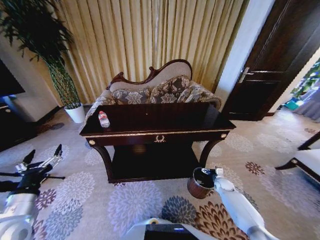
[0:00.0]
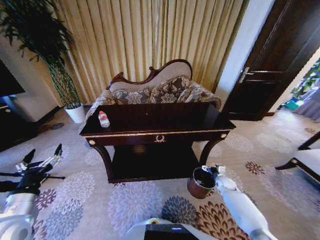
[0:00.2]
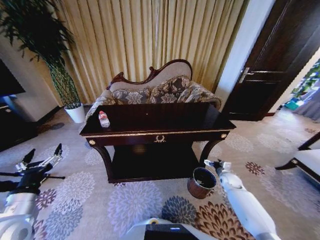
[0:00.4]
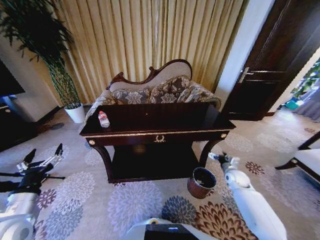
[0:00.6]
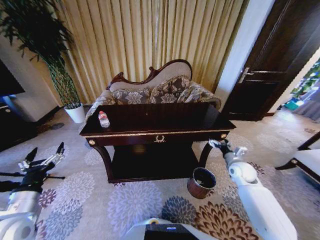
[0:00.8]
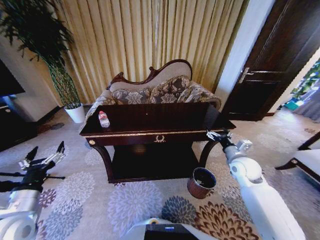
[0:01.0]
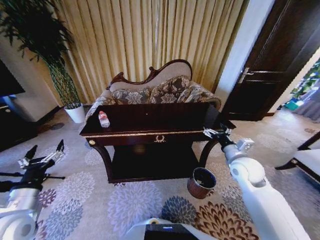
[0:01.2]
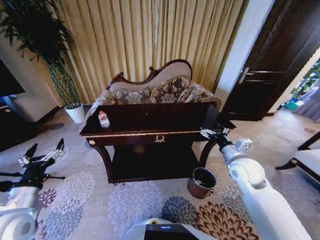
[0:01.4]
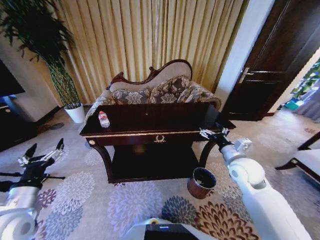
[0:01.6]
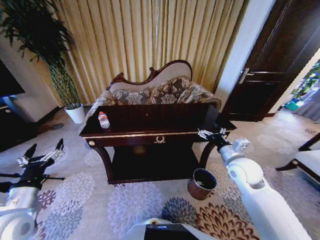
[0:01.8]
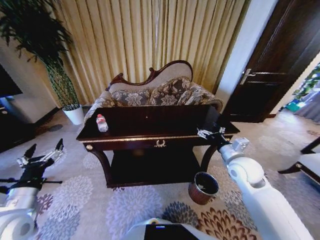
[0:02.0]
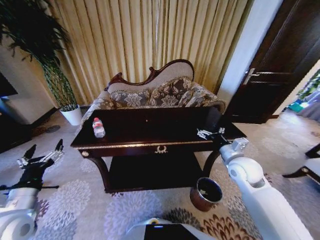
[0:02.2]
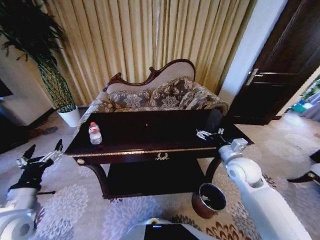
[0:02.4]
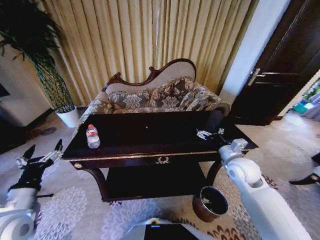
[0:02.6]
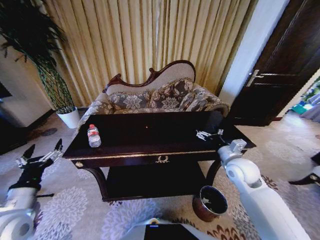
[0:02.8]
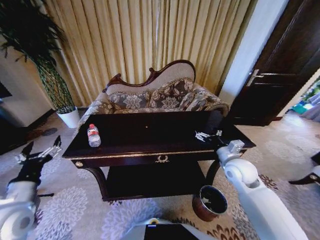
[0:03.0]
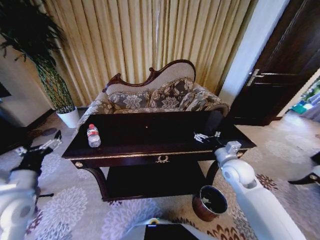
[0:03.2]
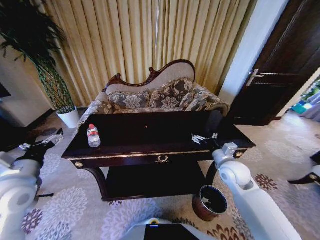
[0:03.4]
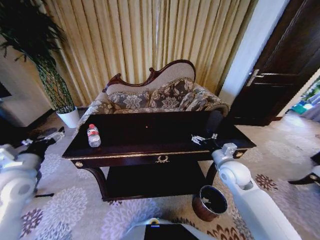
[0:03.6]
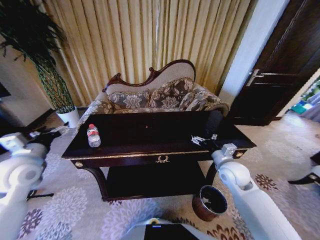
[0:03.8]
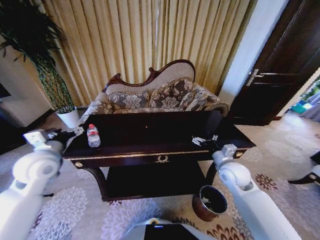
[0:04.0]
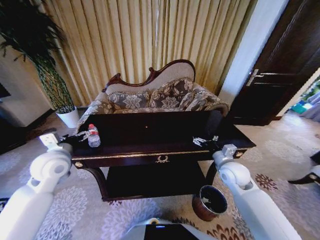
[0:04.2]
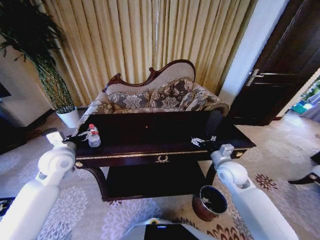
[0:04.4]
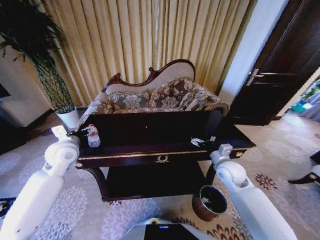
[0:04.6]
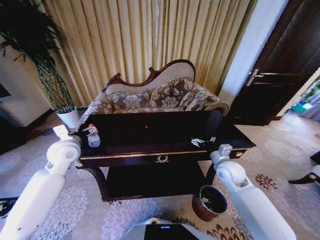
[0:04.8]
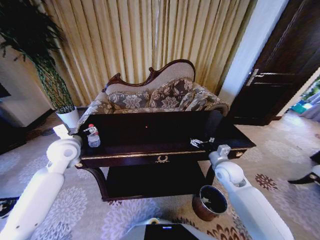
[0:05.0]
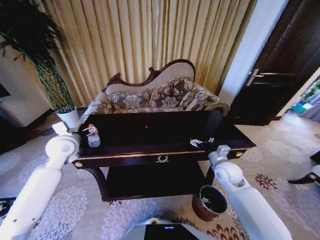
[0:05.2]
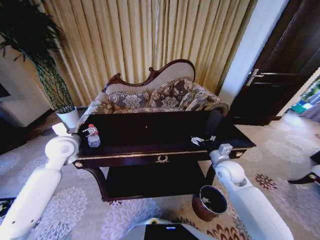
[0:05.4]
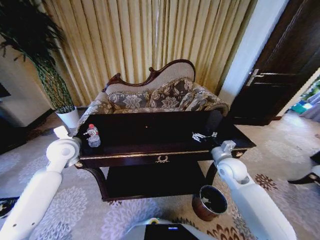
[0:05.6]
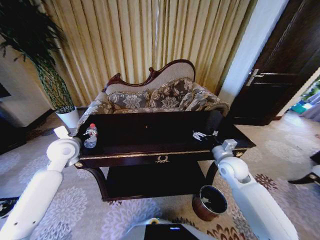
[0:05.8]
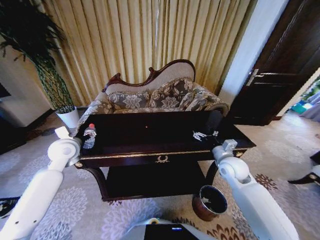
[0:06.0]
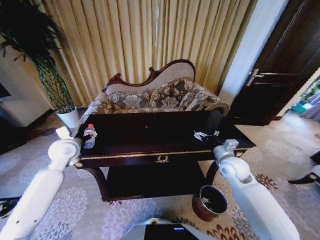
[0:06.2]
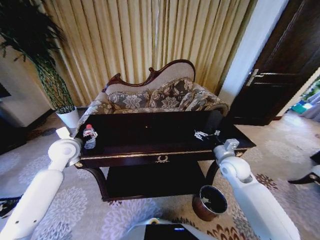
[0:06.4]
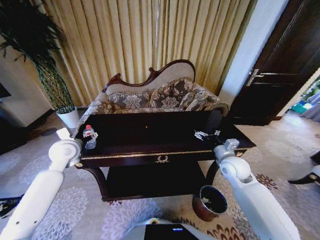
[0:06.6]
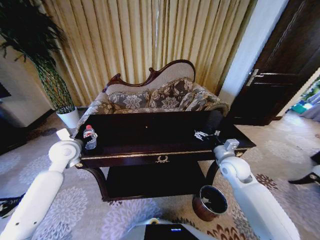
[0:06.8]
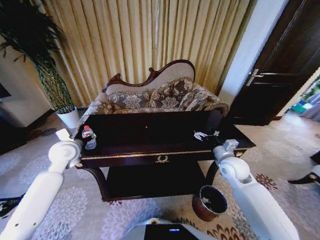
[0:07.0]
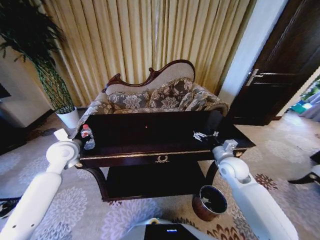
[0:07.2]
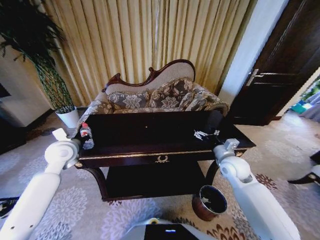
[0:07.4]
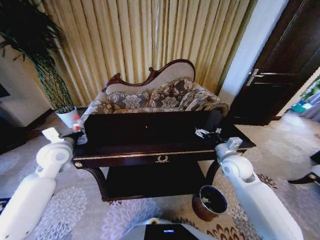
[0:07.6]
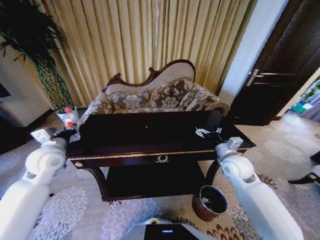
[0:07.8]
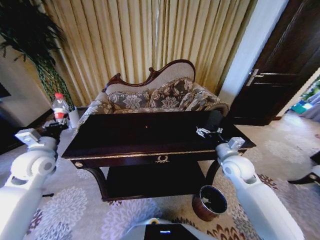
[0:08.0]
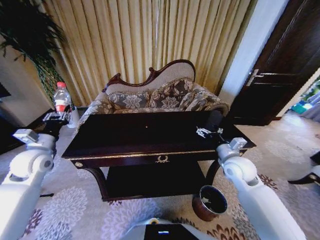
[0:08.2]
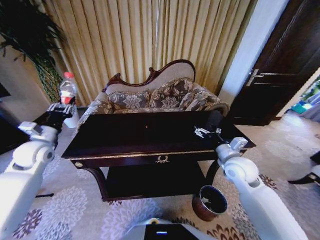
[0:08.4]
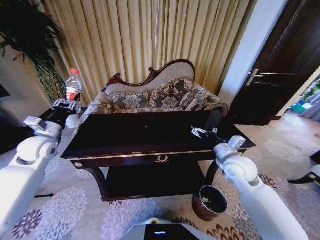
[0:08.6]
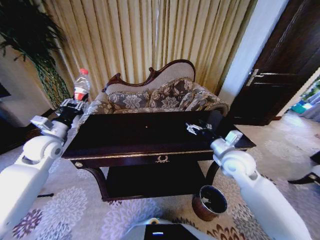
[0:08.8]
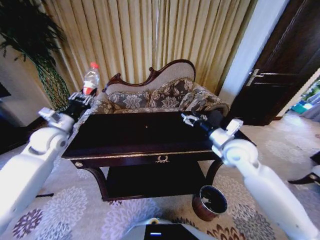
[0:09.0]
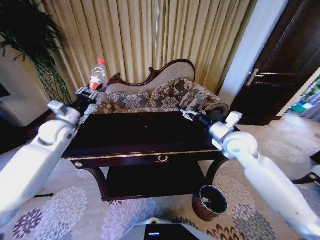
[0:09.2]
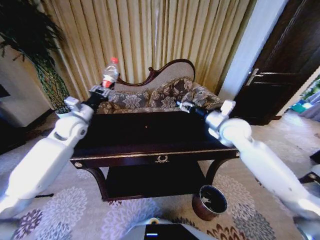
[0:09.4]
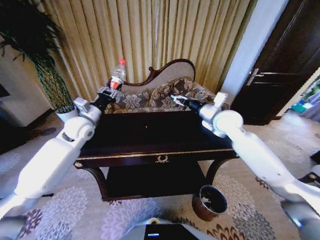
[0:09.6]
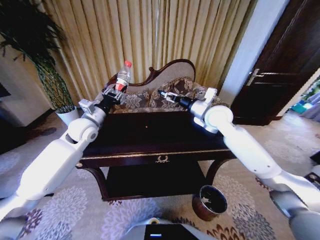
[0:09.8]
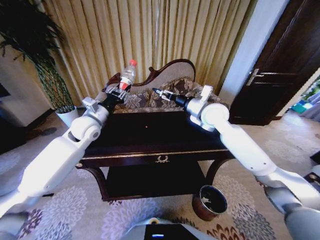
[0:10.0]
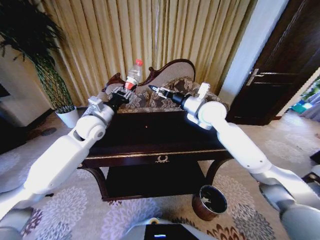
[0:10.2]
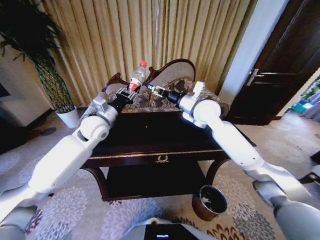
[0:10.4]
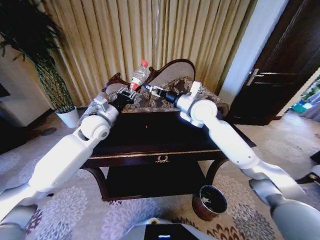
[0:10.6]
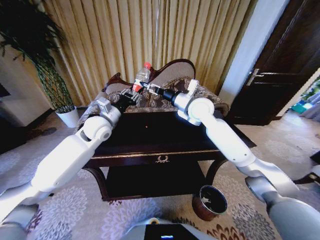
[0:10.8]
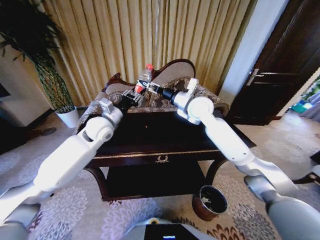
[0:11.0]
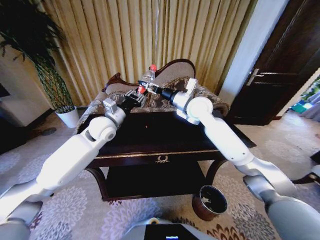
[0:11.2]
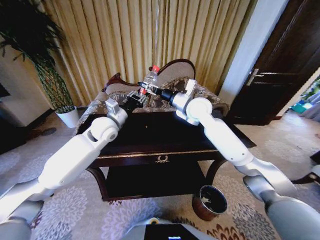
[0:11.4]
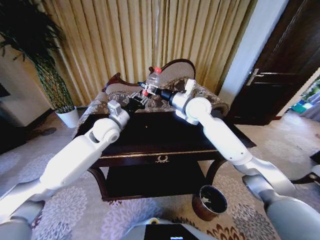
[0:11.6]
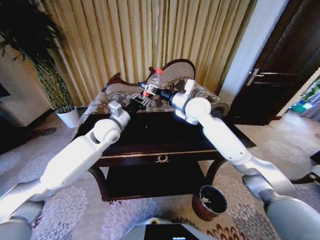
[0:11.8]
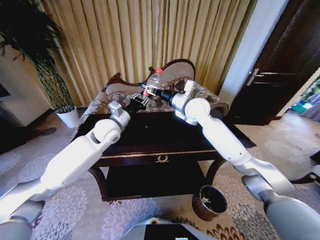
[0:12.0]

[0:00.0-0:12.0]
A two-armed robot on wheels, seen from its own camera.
Task of the whole recording: Move to the front of the table and place the trash on the table into the trash bin.
0:00.0 to 0:01.6: The right gripper is displaced upward by approximately 30 cm.
0:03.0 to 0:04.4: The left gripper shifts approximately 20 cm forward.
0:04.4 to 0:06.0: The grippers make only small movements.
0:06.0 to 0:07.6: The left gripper closes up.
0:07.6 to 0:09.0: The left gripper shifts by roughly 5 cm; the right gripper goes some 10 cm upward.
0:09.0 to 0:10.4: The left gripper moves to the right, roughly 15 cm, while the right gripper is displaced forward, to the left and upward by roughly 20 cm.
0:10.4 to 0:12.0: The grippers make only small movements.

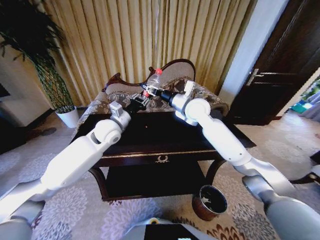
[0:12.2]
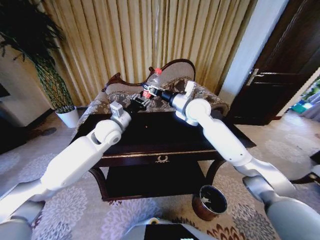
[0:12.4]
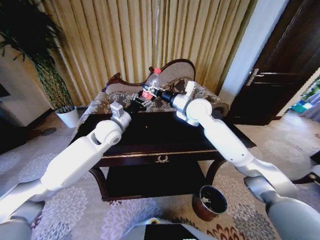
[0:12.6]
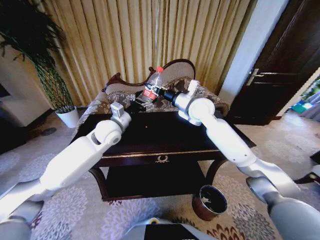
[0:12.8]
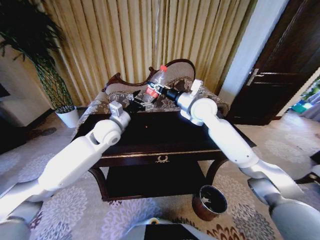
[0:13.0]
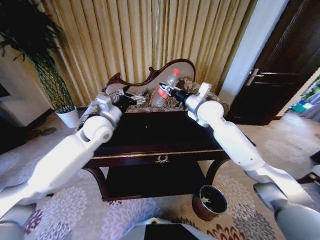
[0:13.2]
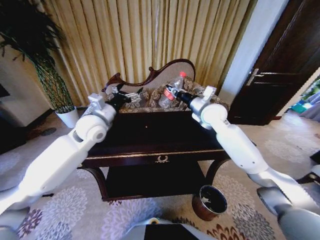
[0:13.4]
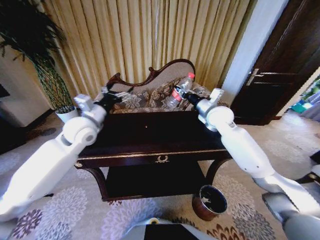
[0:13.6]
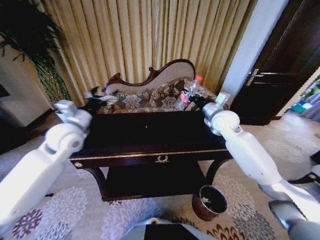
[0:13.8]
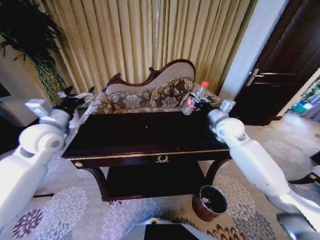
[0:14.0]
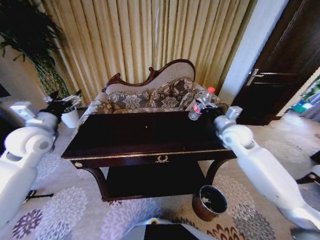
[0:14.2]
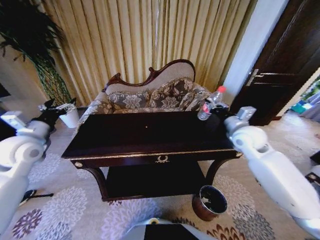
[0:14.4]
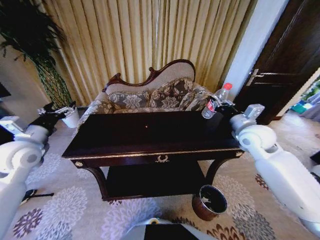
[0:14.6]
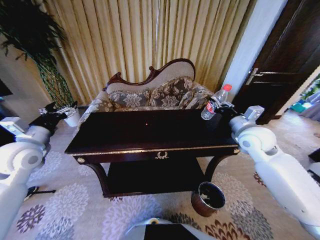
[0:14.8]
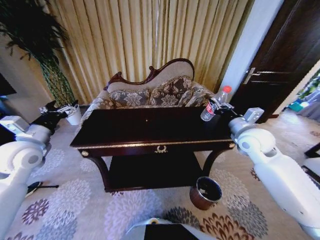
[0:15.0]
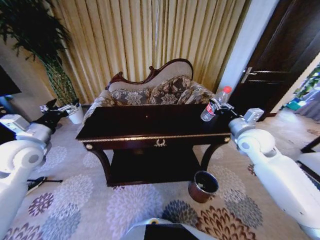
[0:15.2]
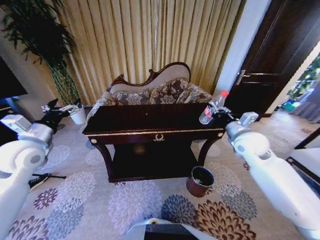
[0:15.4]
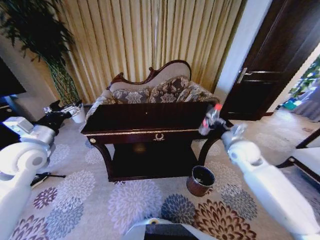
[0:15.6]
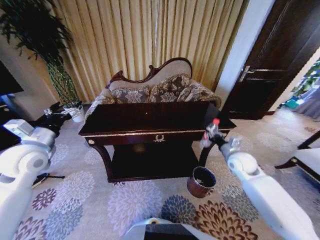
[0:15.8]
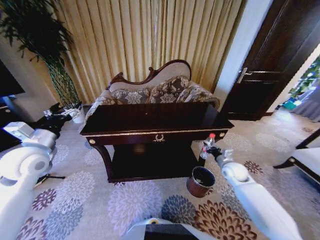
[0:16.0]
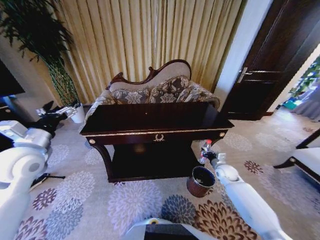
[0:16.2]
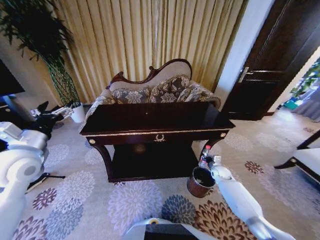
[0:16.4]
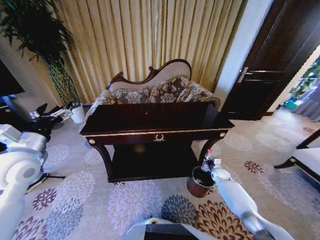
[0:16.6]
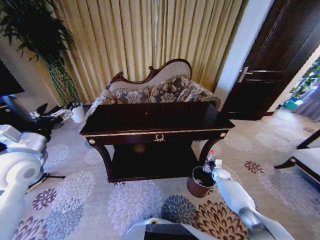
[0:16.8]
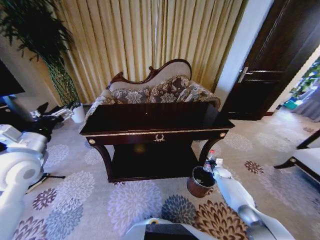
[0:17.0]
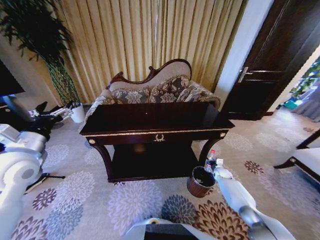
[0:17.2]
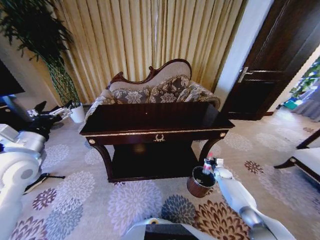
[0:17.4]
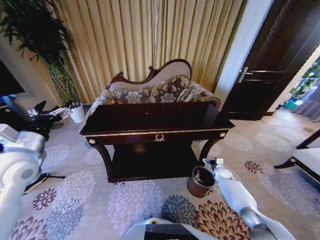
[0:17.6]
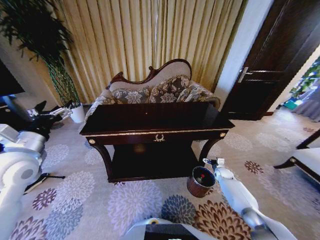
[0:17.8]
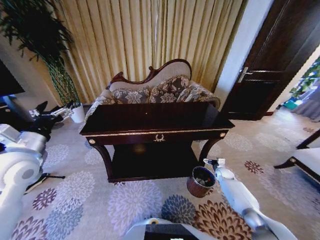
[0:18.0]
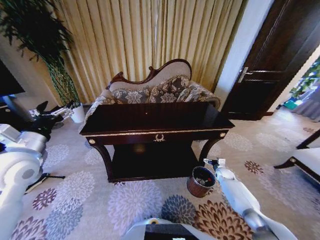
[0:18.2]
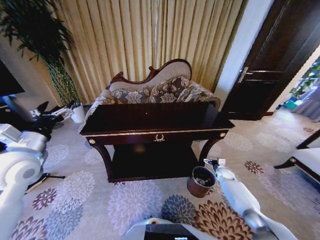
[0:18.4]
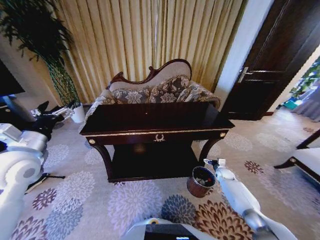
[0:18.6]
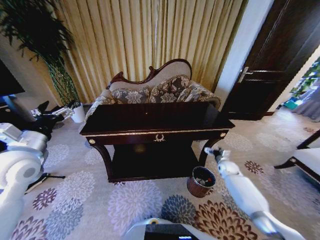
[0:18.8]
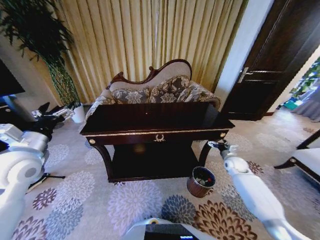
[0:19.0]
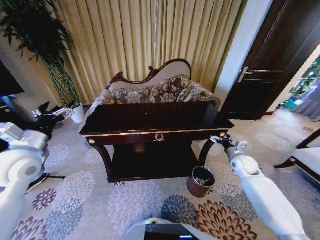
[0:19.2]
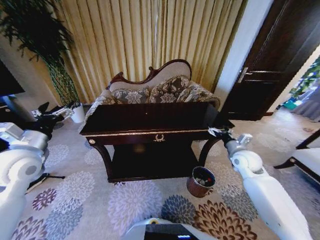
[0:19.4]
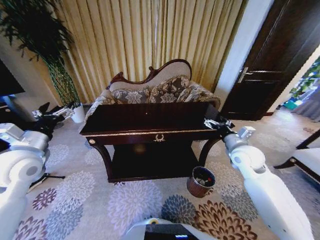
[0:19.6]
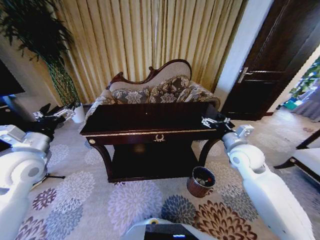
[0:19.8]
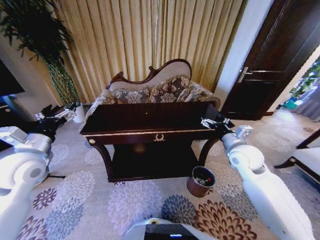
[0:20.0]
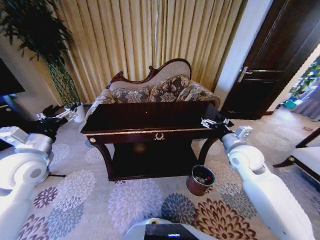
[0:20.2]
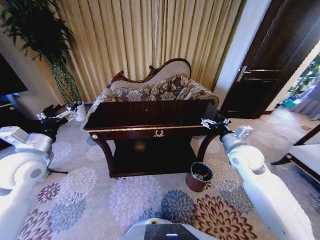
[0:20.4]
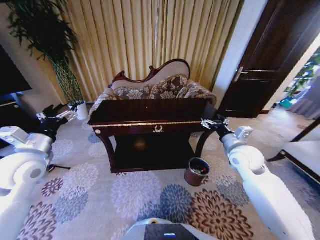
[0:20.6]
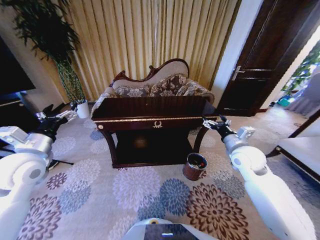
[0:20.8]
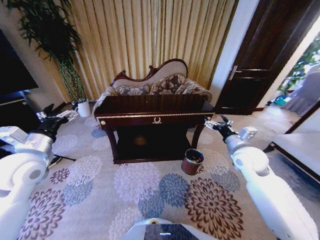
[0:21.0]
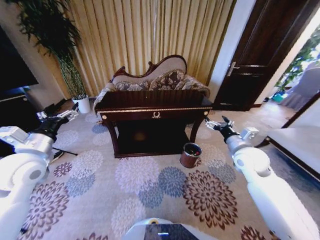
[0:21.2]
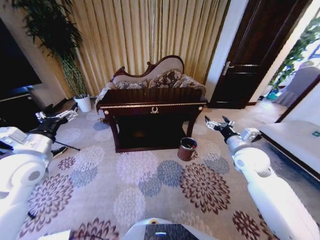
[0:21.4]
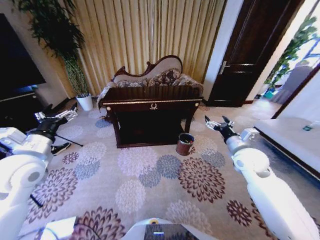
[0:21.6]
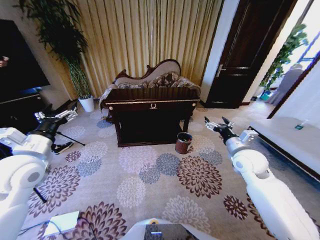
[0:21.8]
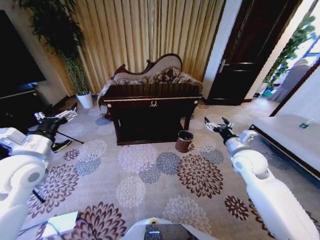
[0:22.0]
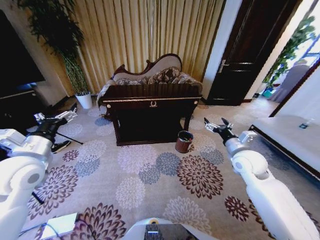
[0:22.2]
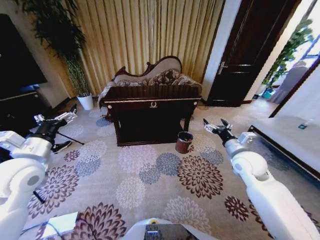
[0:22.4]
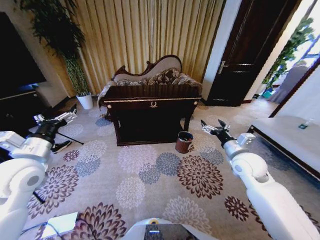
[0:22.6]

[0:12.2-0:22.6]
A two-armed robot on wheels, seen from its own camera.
Task of the whole recording: Move to the front of the table and place the trash on the table into the trash bin.
0:12.2 to 0:13.6: The right gripper heads to the right, covering approximately 10 cm, and closes up. The left gripper travels to the left by approximately 10 cm, and opens.
0:13.6 to 0:15.2: The right gripper is displaced backward and to the right by some 15 cm. The left gripper is displaced to the left and backward by approximately 15 cm.
0:15.2 to 0:16.6: The right gripper travels downward by approximately 40 cm.
0:16.6 to 0:18.2: The right gripper opens up.
0:18.2 to 0:19.6: The right gripper goes about 30 cm upward.
